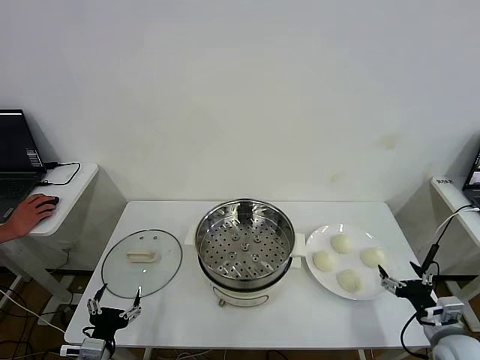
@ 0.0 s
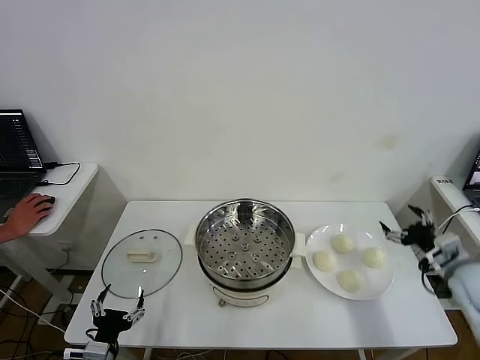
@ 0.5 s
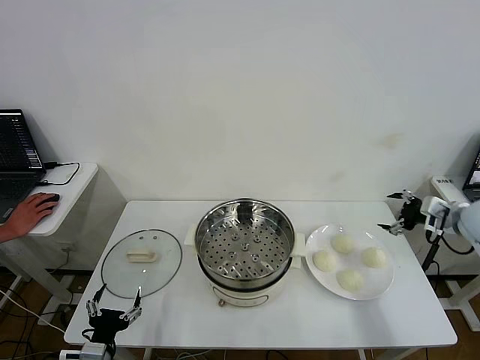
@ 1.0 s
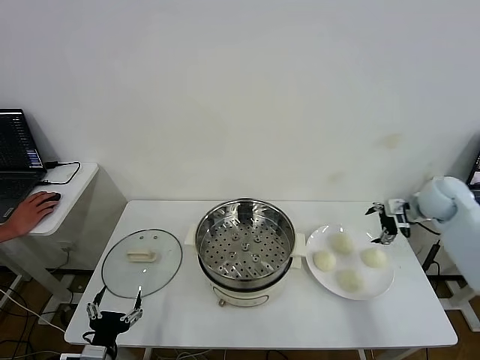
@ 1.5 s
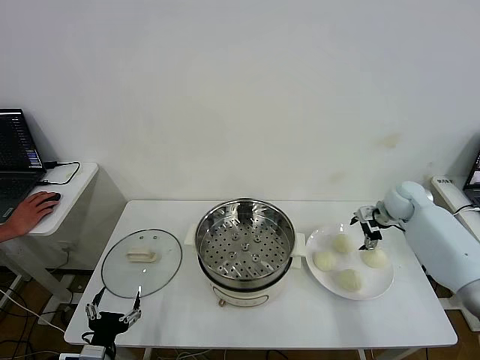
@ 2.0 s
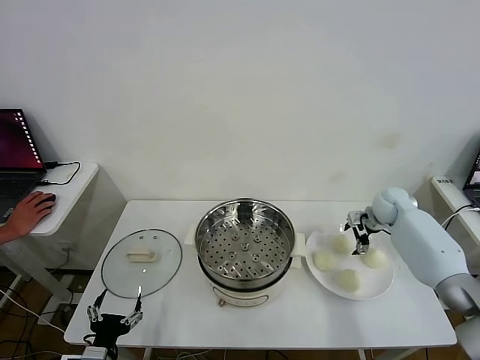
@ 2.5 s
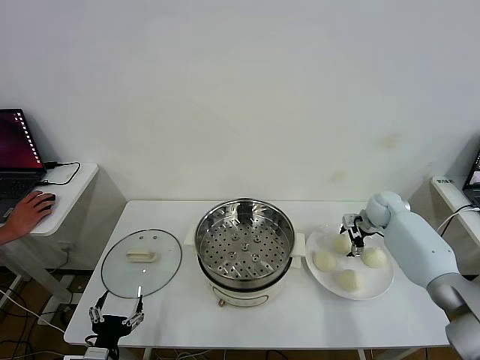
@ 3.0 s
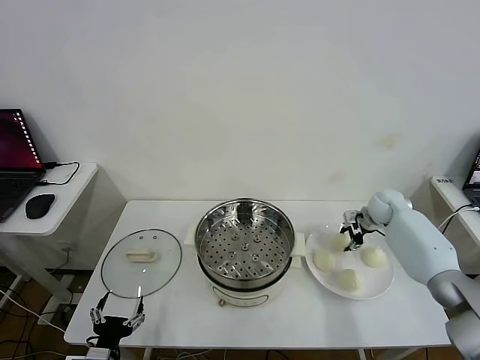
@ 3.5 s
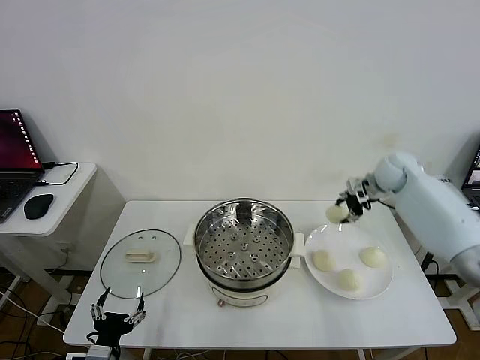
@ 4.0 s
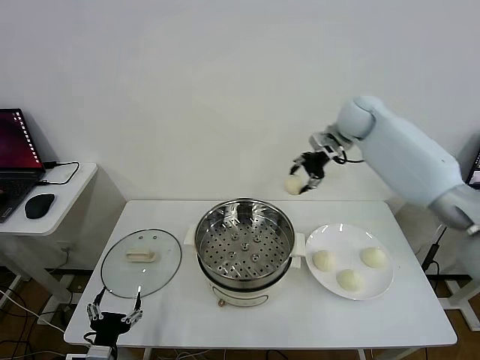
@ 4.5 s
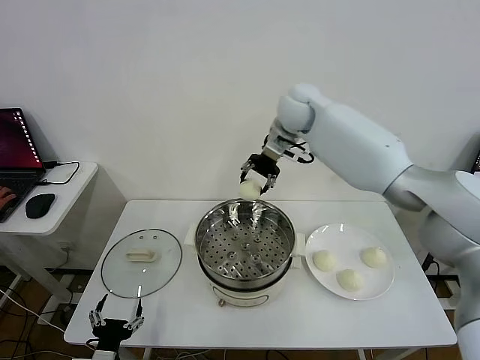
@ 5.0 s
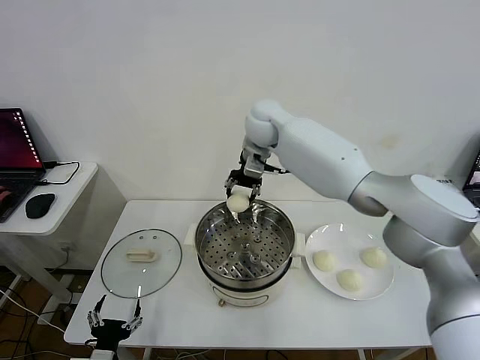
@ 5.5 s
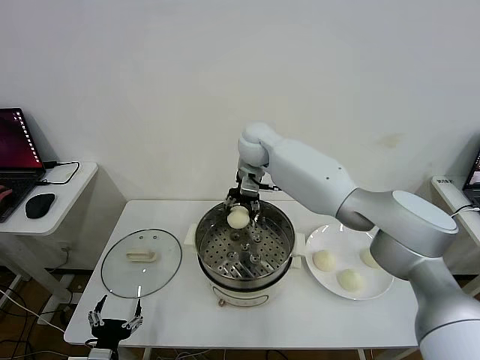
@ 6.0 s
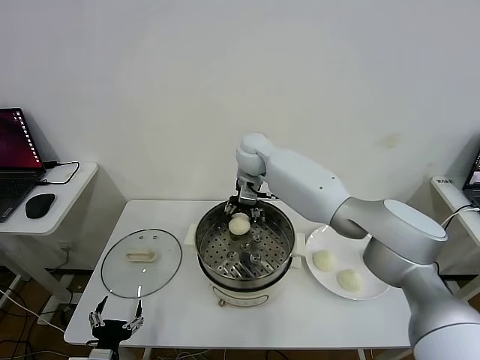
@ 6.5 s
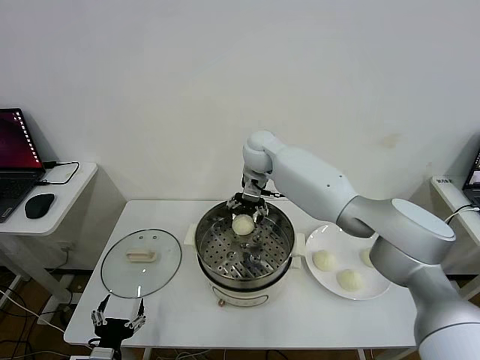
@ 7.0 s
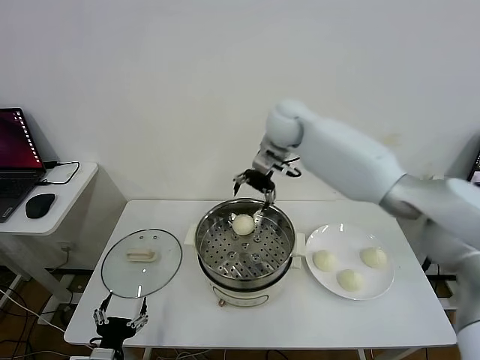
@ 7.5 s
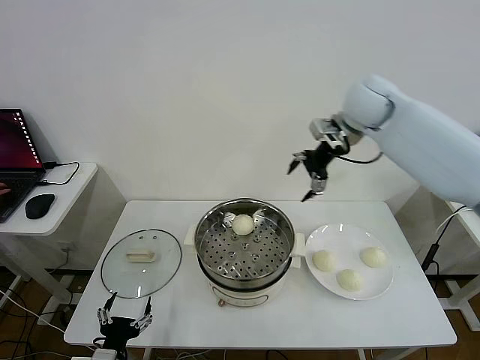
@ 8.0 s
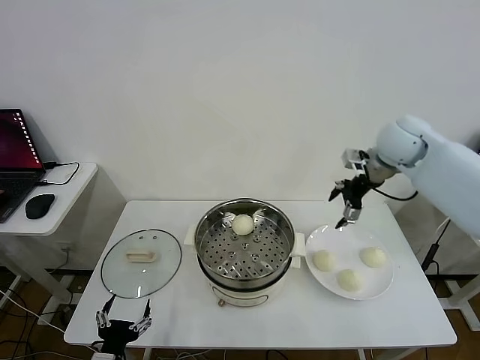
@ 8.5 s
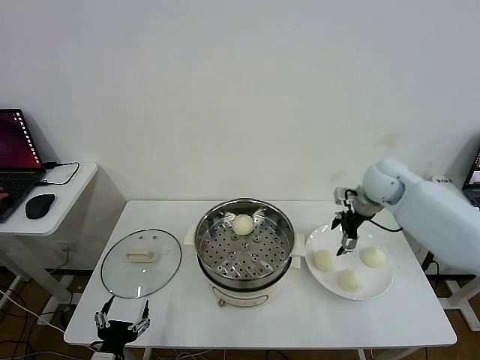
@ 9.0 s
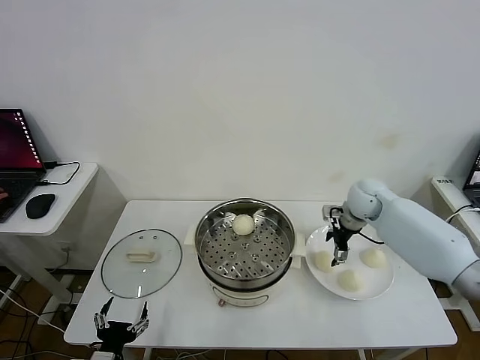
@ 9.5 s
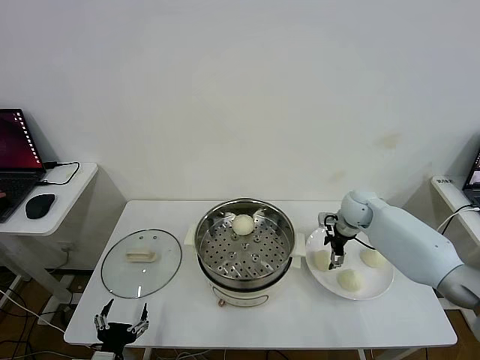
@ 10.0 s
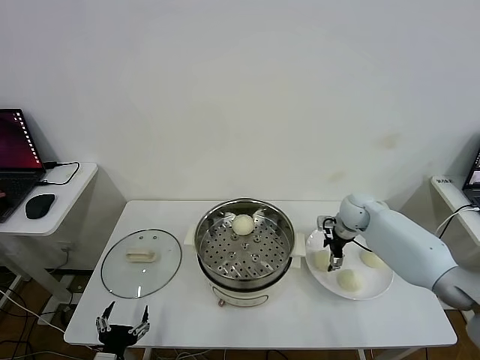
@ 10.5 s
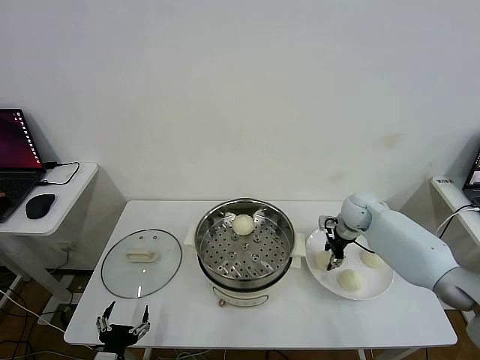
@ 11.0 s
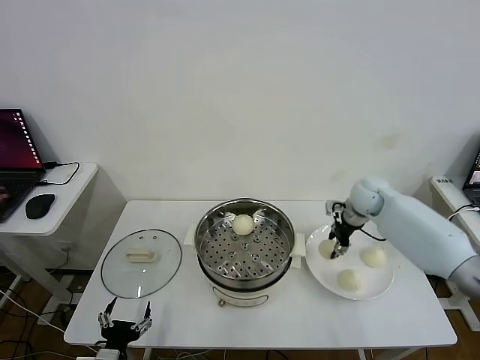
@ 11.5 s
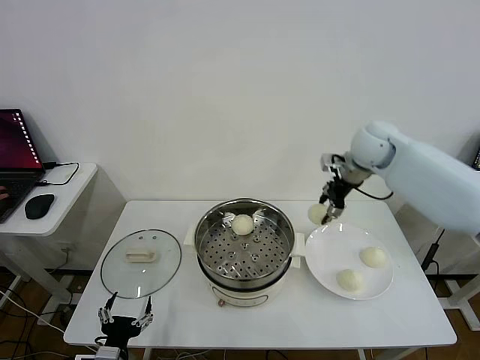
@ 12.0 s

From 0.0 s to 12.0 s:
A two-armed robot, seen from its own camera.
Step, from 0.0 s to 3.0 s: Grasp the baozi in the plate with right gripper.
Step, from 3.5 s to 6.5 s: Place the baozi on the steamer with right gripper.
Step, from 7.5 s to 10.5 s: Grasp the baozi in the plate with right gripper.
From 2.0 s to 4.0 s: The right gripper goes approximately 15 cm upward and to the left, and closes.
From 4.0 s to 6.0 s: The right gripper shifts some 30 cm to the left.
From 6.0 s to 8.0 s: The right gripper moves to the right and upward, roughly 25 cm, and opens up.
From 8.0 s to 10.0 s: The right gripper heads downward, covering roughly 25 cm.
From 10.0 s to 12.0 s: The right gripper is displaced upward by about 20 cm, and closes its fingers.

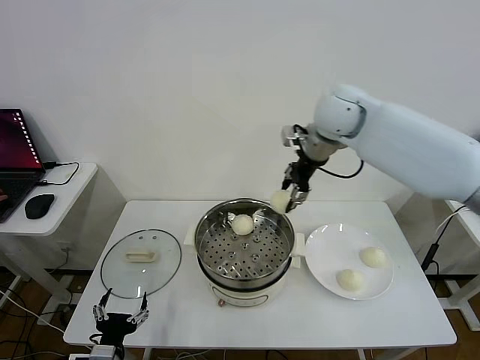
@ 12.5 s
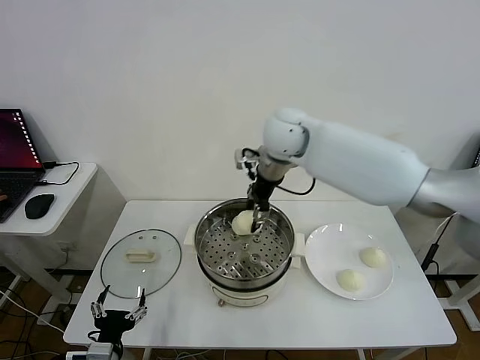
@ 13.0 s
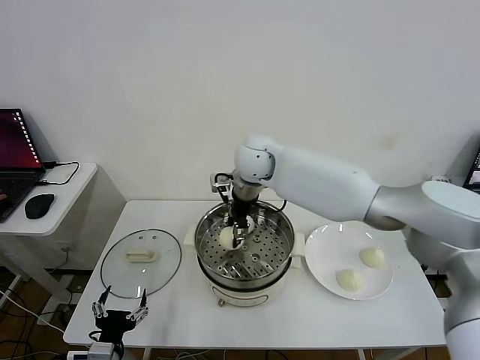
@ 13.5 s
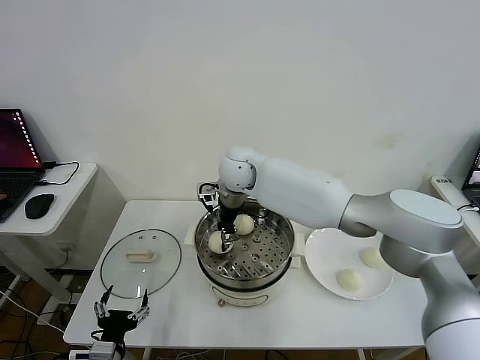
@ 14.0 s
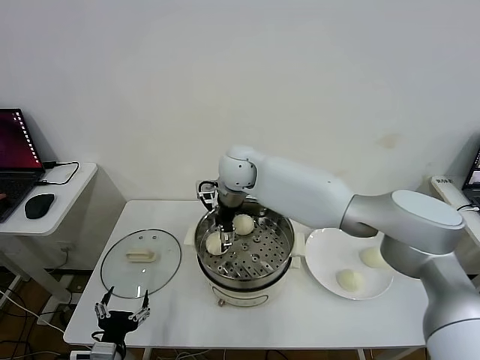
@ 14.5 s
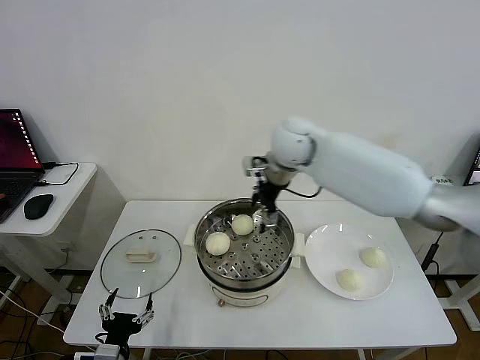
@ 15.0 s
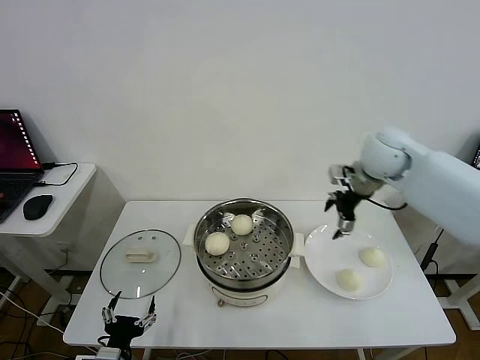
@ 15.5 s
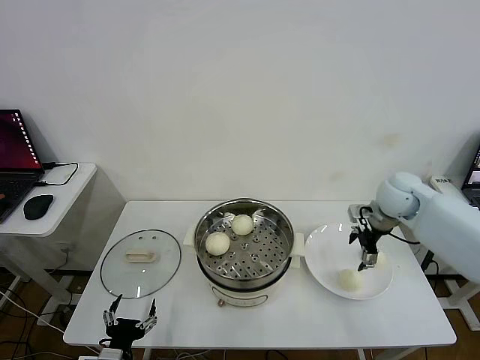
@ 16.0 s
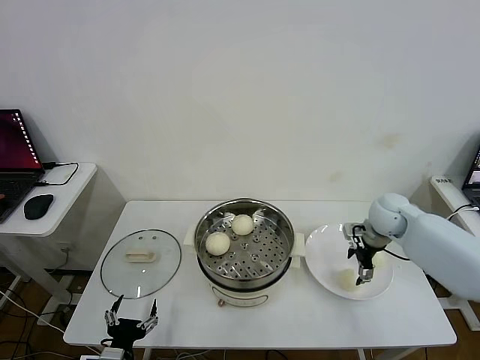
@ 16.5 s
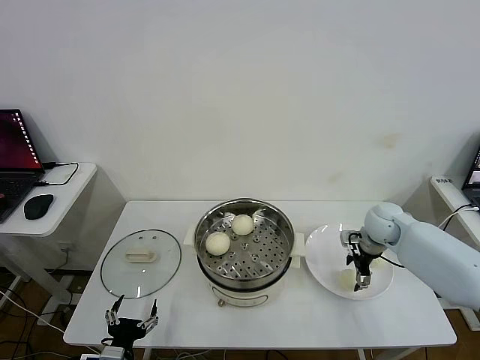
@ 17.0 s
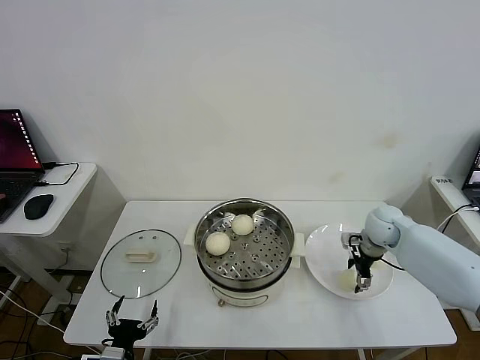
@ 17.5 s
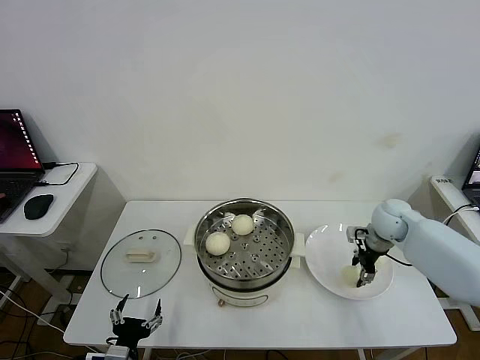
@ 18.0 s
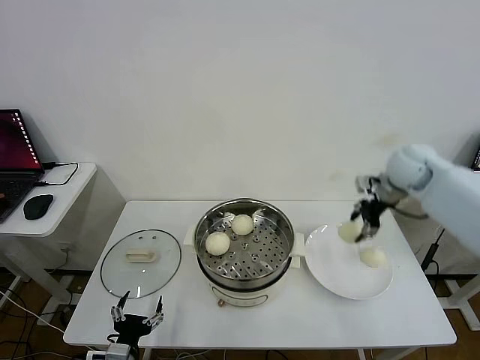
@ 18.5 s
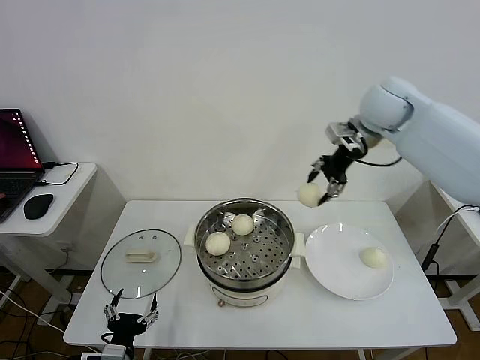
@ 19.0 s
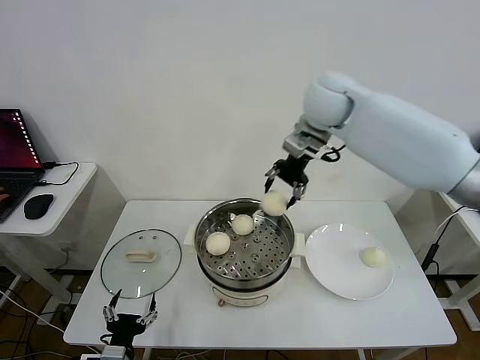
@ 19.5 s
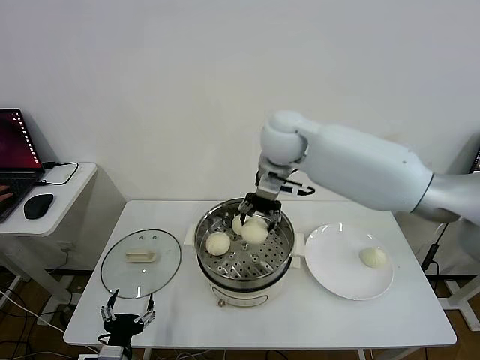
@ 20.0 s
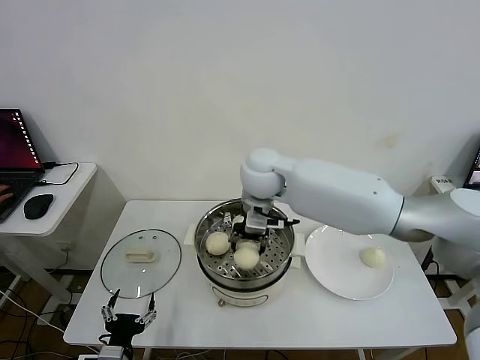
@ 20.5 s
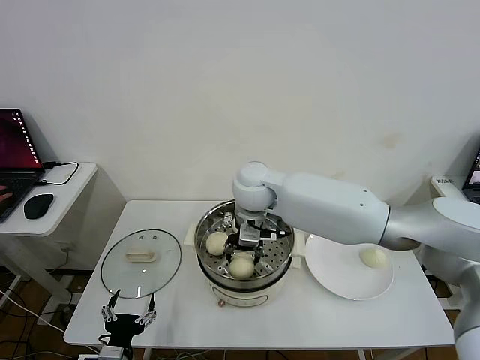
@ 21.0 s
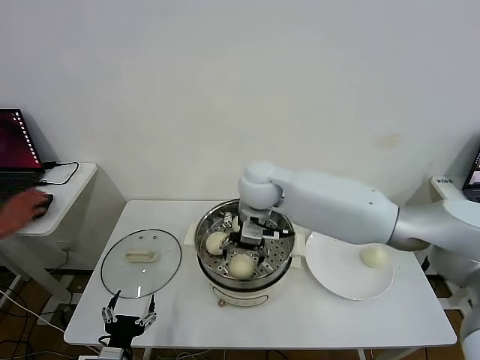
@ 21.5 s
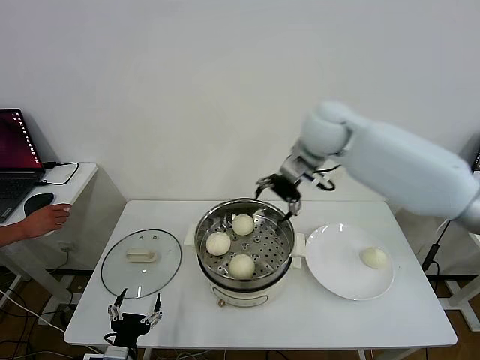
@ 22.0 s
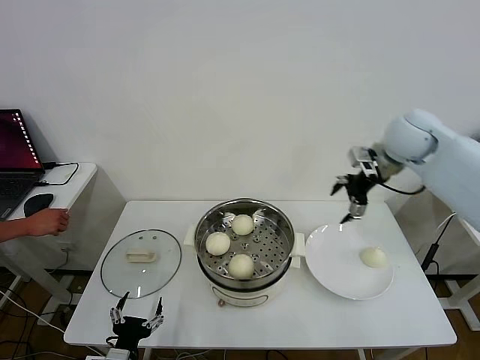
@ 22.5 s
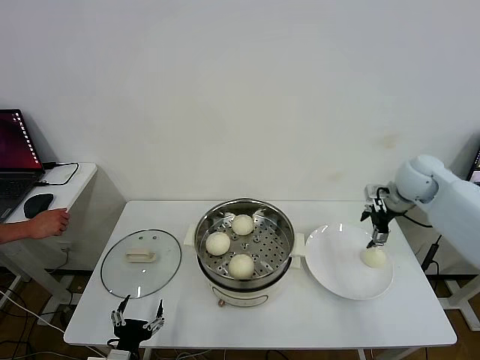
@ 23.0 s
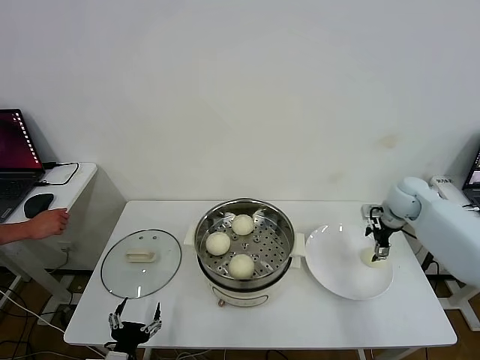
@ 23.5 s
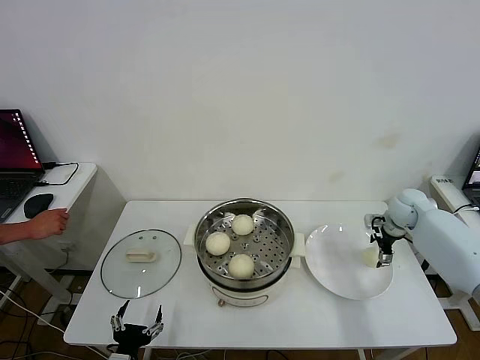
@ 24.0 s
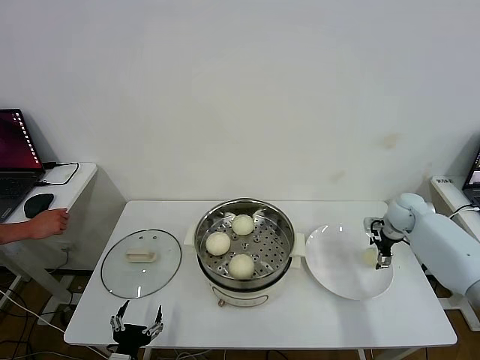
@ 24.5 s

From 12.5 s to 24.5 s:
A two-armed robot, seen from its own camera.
Step, from 14.5 s to 17.5 s: Grasp the baozi in the plate with right gripper.
Step, from 18.0 s to 21.0 s: Place the baozi on the steamer with right gripper.
From 12.5 s to 14.5 s: The right gripper moves to the left and downward, roughly 20 cm, and opens.
From 14.5 s to 16.5 s: The right gripper goes approximately 35 cm to the right.
From 16.5 s to 18.5 s: The right gripper shifts some 15 cm upward, and closes its fingers.
From 18.5 s to 20.5 s: The right gripper is displaced to the left by approximately 30 cm.
From 20.5 s to 22.5 s: The right gripper travels to the right by about 30 cm, and opens up.
From 22.5 s to 24.5 s: The right gripper moves downward and to the right, roughly 25 cm.

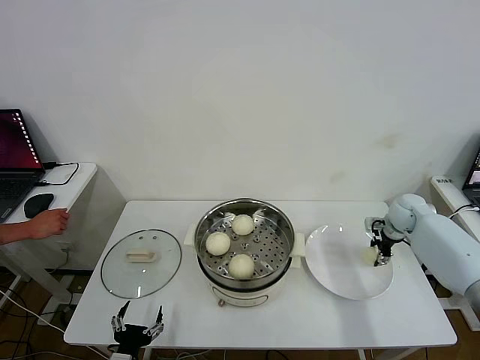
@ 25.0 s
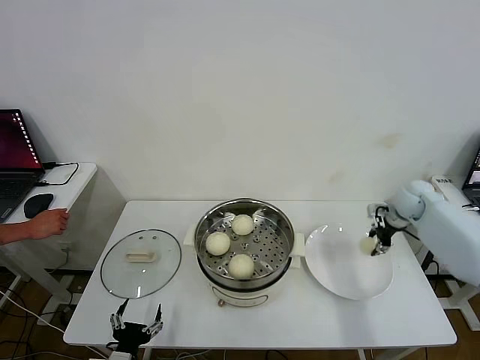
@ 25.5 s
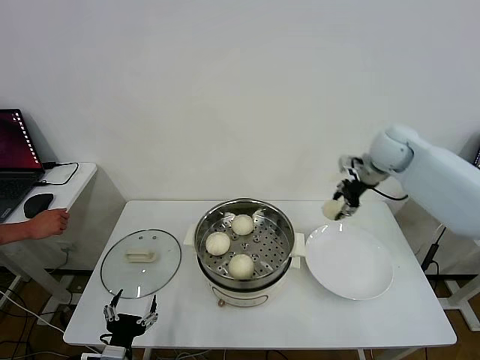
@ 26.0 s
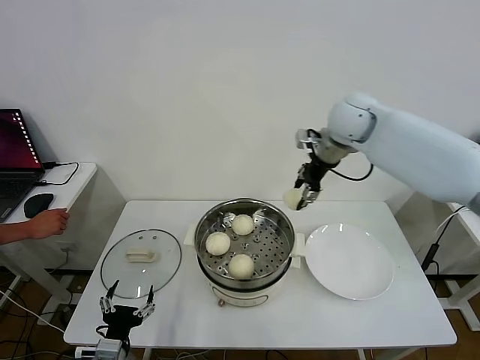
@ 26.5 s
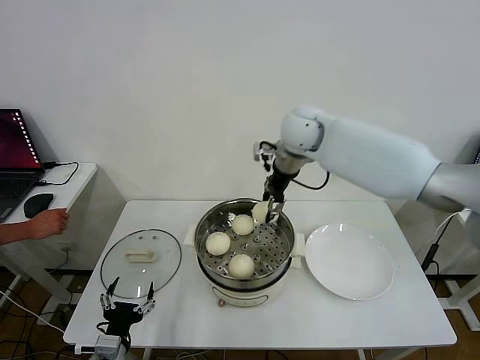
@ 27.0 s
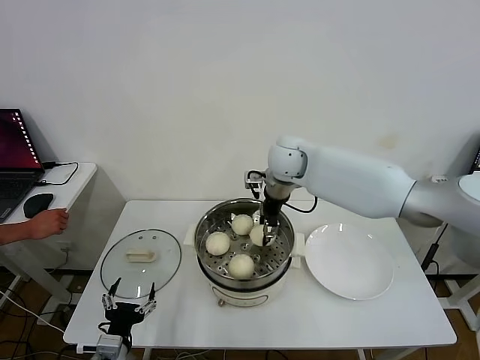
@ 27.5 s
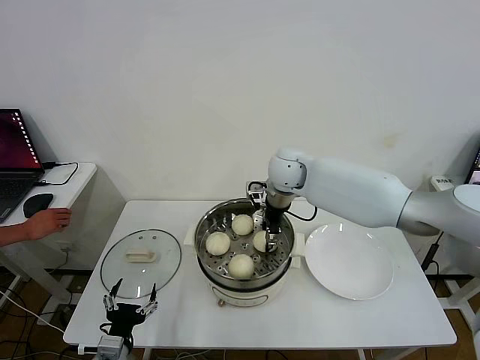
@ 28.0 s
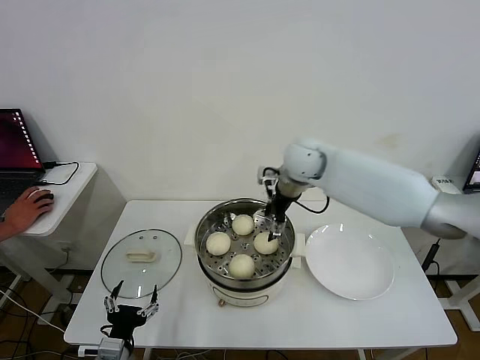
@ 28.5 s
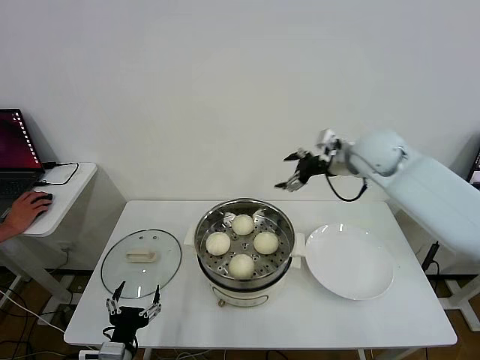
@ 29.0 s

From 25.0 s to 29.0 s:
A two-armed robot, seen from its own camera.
Step, from 25.5 s to 28.0 s: Place the baozi on the steamer with right gripper.
From 25.0 s to 27.0 s: The right gripper goes roughly 40 cm to the left and upward.
From 27.0 s to 29.0 s: The right gripper goes approximately 15 cm to the right, and opens.
